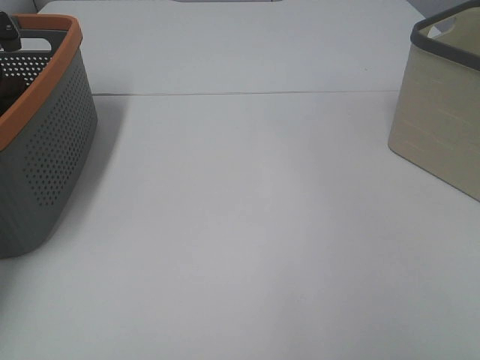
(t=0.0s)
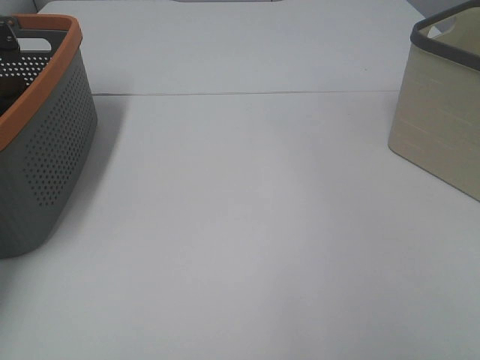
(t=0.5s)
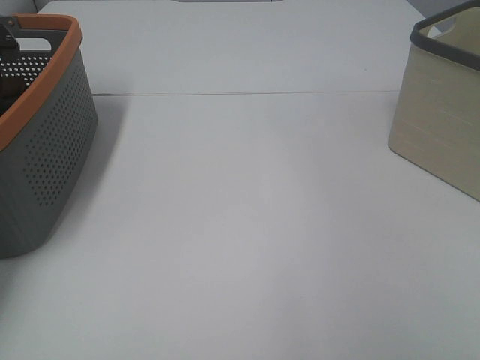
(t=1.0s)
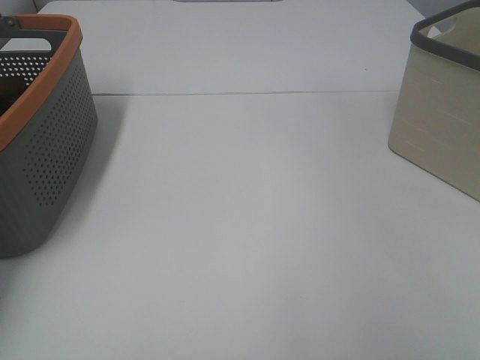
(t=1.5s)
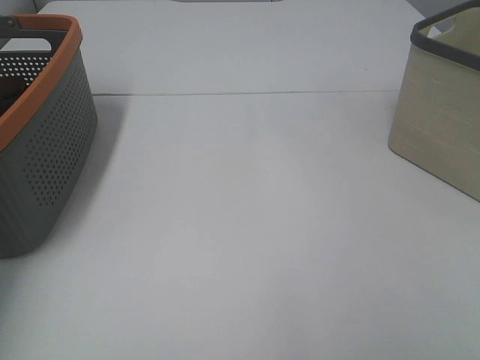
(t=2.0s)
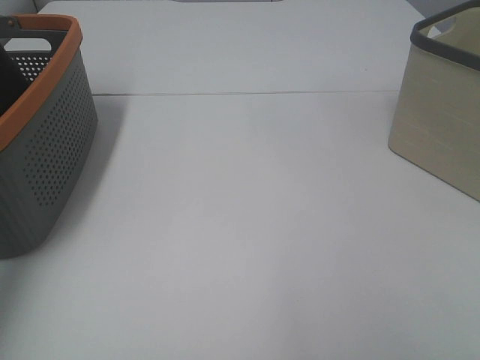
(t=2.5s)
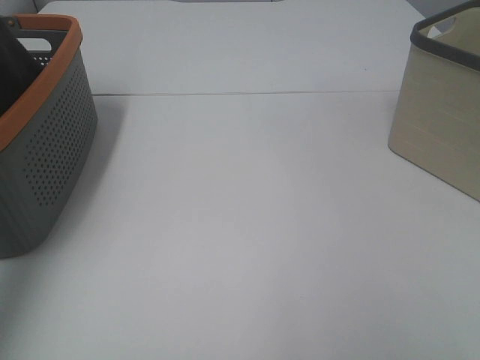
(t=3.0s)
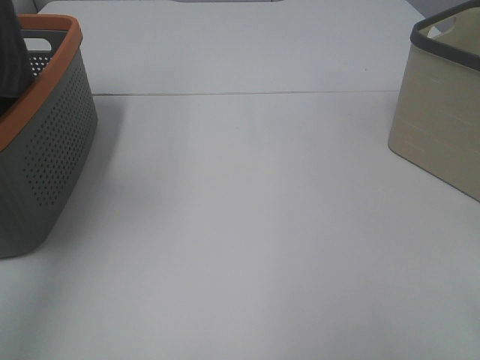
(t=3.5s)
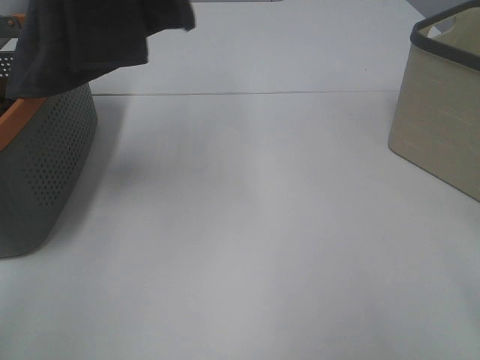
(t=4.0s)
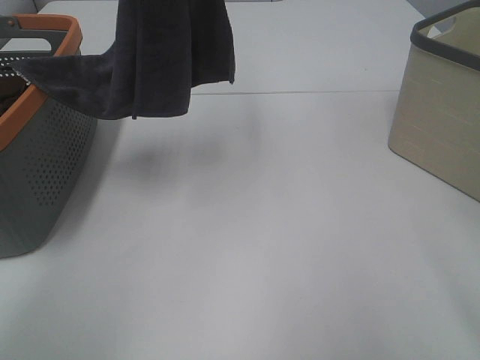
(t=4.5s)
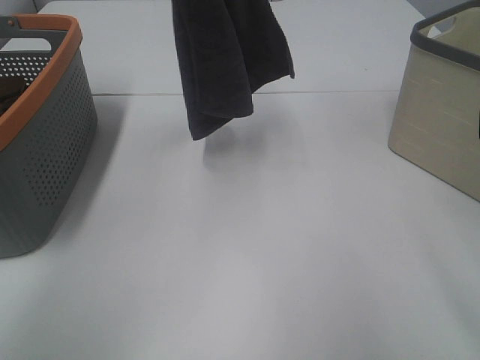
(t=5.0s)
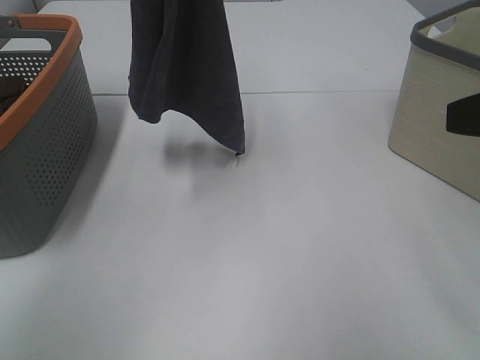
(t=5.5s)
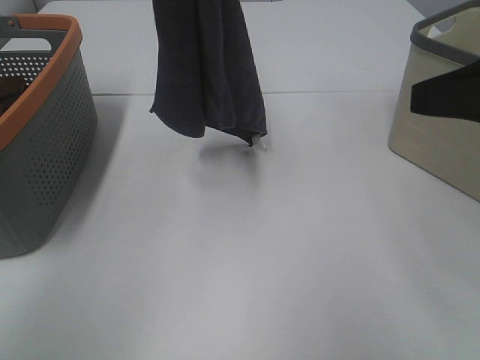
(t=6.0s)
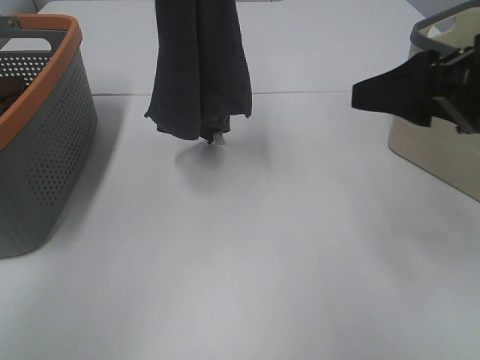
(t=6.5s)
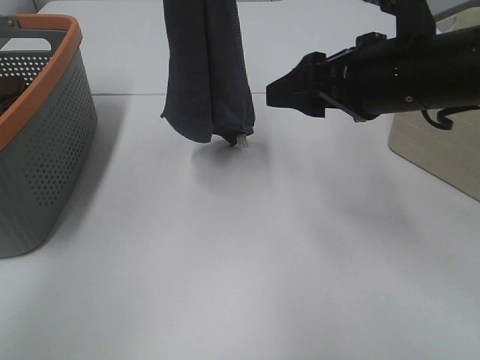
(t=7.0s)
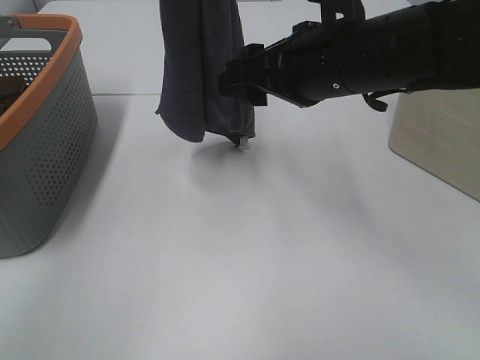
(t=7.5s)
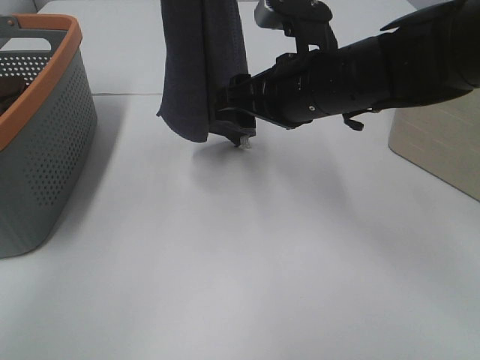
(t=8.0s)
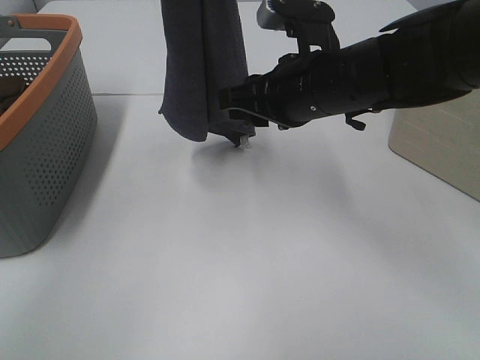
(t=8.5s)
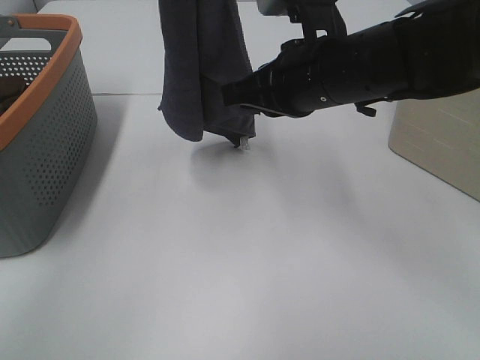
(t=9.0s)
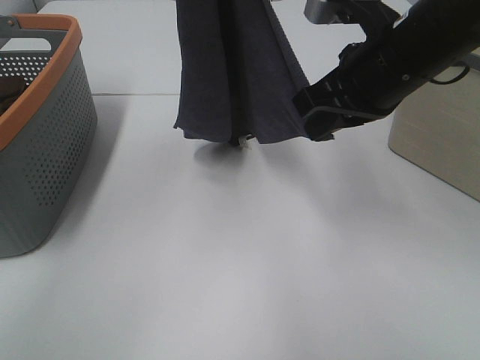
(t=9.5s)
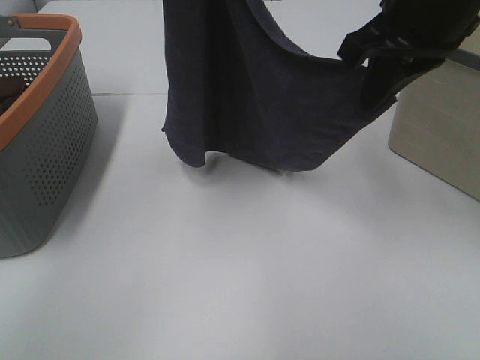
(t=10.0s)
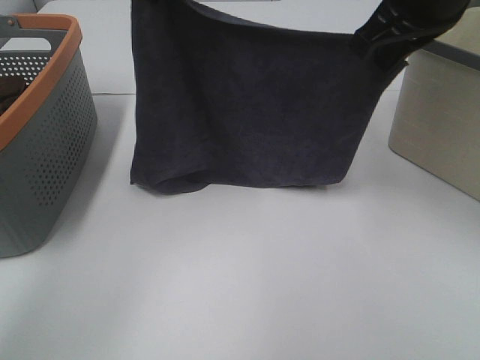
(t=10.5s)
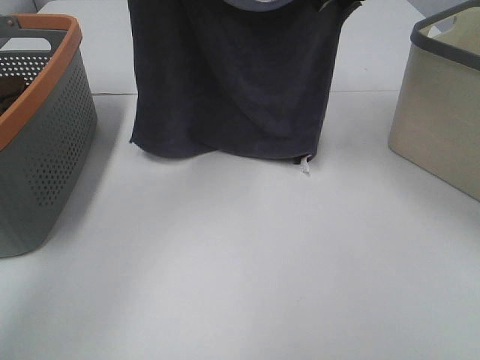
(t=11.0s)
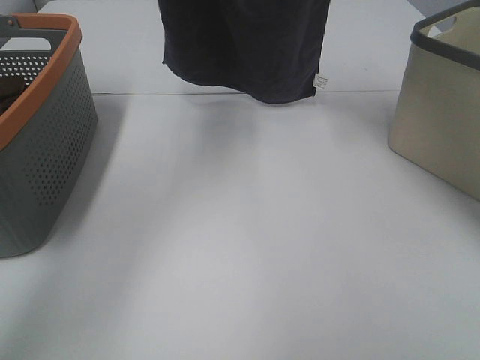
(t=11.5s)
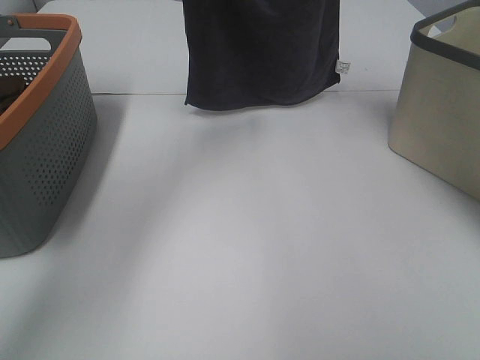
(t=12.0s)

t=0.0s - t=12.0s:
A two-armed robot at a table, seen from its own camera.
Task of the whole recording: Remove the towel and place it.
Step, t=4.0s - t=8.0s: Right hand: grab a corner of the grey towel and straighten it.
Step, t=8.5s - t=11.0s: Right hand: spread the grey towel flat on the table.
t=2.0s - t=4.0s: The left gripper heads upward, to the right and backward, covering about 30 cm, while the right gripper travels forward by about 10 cm.
t=4.0s - t=6.0s: The right gripper moves forward, approximately 10 cm; the left gripper shifts roughly 15 cm downward, to the right and forward.
t=6.0s - t=8.0s: The right gripper is displaced to the left, forward and downward by roughly 25 cm.
t=8.0s - t=10.0s: The left gripper shifts by about 5 cm. Meanwhile the right gripper goes some 15 cm upward and to the right, and closes.
t=10.0s - t=12.0s: The left gripper shifts roughly 15 cm forward and downward; the right gripper shifts about 20 cm forward.

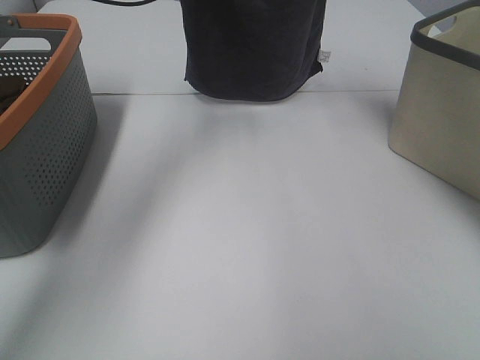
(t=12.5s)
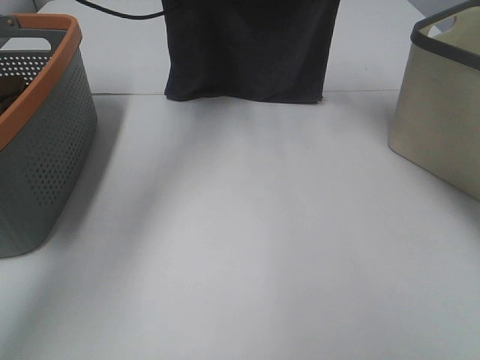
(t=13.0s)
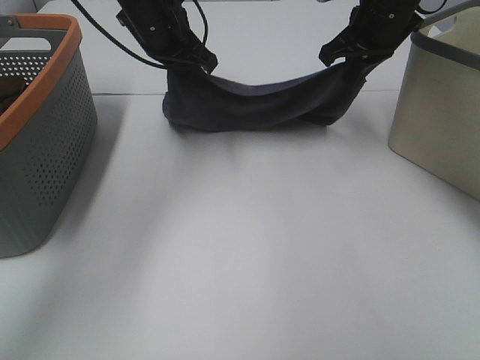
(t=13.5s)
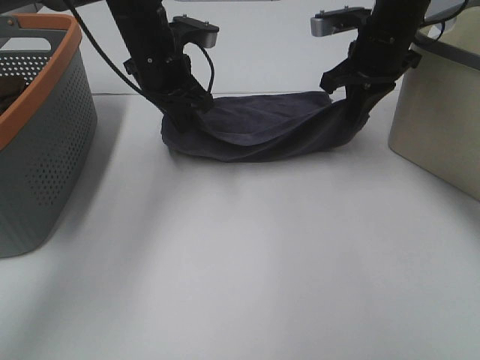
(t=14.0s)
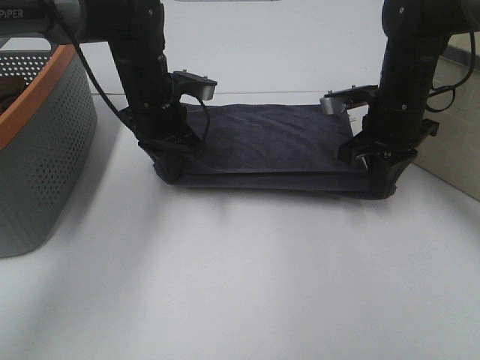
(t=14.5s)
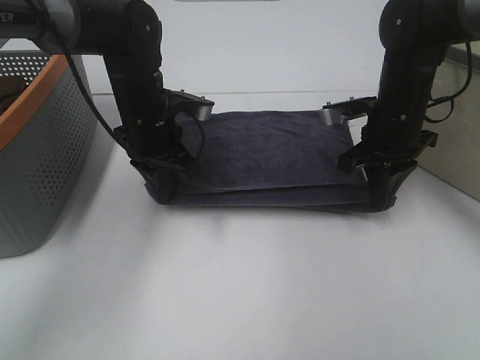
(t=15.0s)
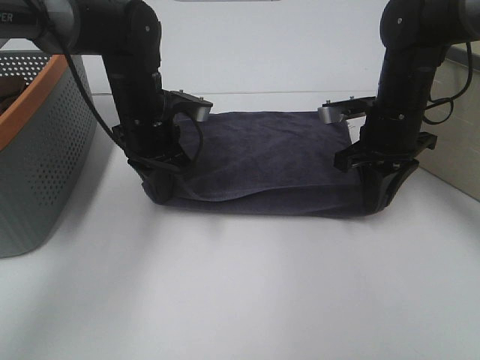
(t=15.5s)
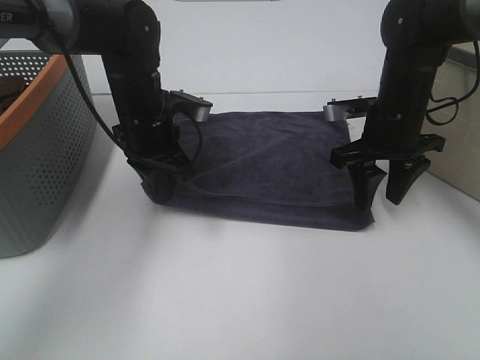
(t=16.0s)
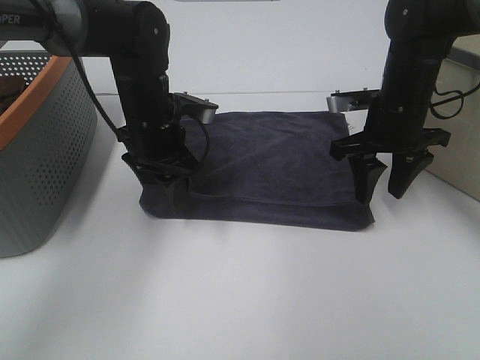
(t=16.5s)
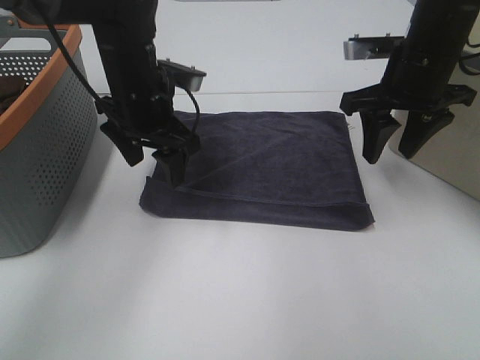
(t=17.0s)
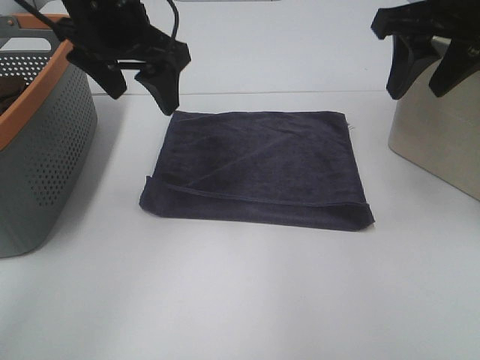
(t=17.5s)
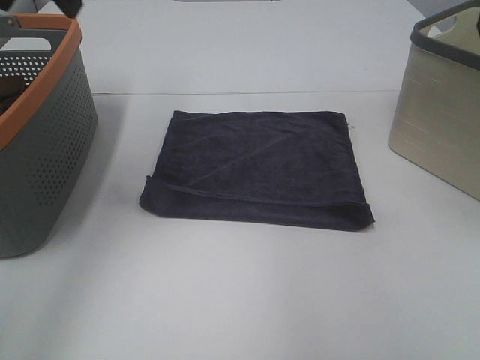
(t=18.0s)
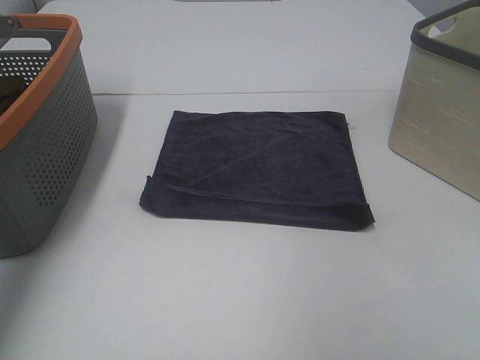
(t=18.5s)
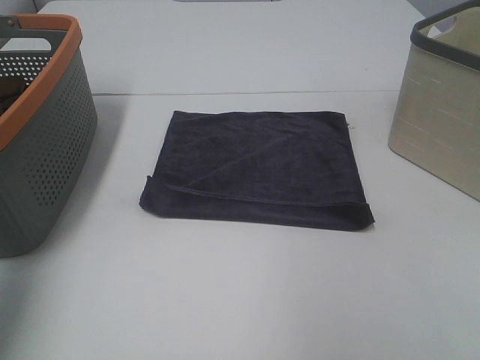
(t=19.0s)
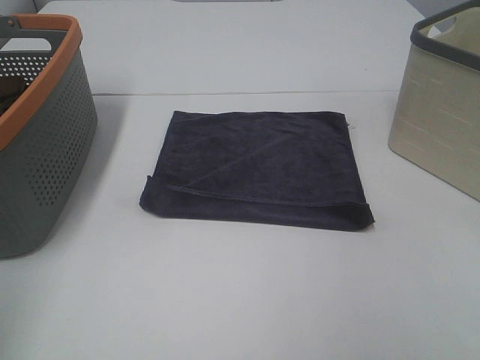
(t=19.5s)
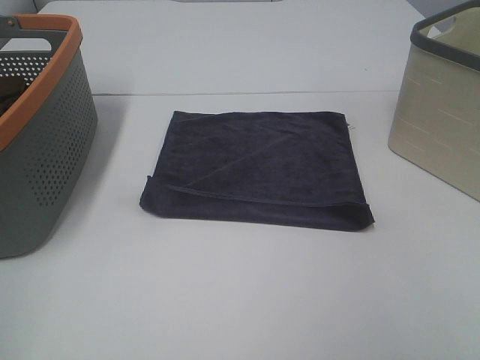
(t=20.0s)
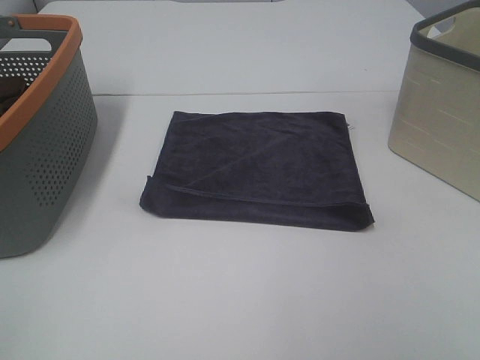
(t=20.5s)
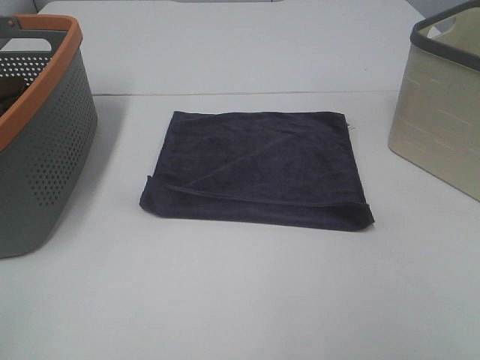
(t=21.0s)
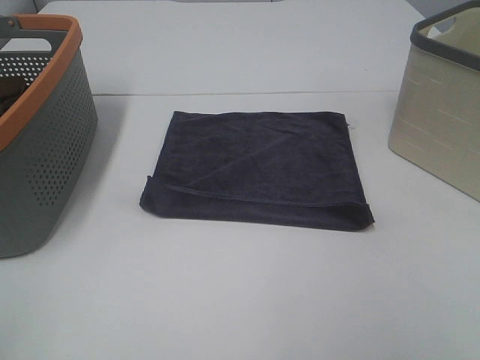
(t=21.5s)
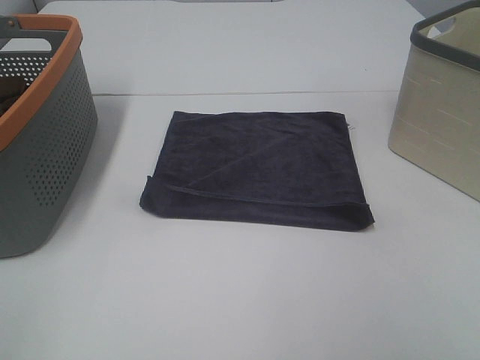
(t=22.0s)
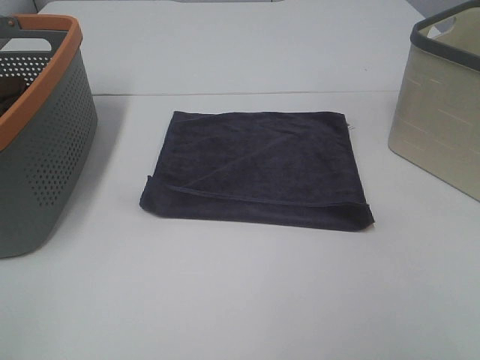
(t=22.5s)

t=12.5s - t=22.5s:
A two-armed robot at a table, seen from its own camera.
Task of the whole recording: Remove the towel and place it.
t=12.5s - t=14.5s: Both grippers move downward and backward, about 20 cm.
t=14.5s - t=16.5s: The left gripper opens. Meanwhile the right gripper opens its fingers.
t=16.5s - t=18.5s: The left gripper moves to the left, upward and backward, approximately 35 cm. The right gripper travels upward, to the right and backward by roughly 30 cm.
t=18.5s - t=20.5s: The left gripper travels backward by some 30 cm.

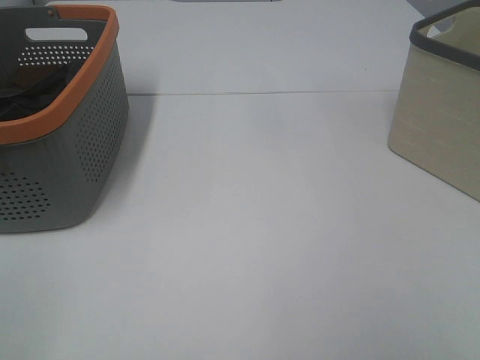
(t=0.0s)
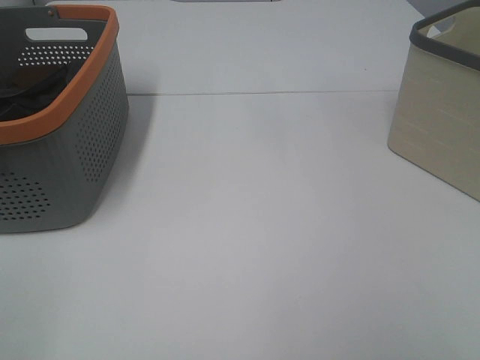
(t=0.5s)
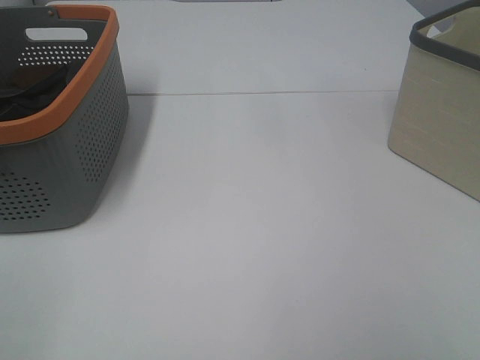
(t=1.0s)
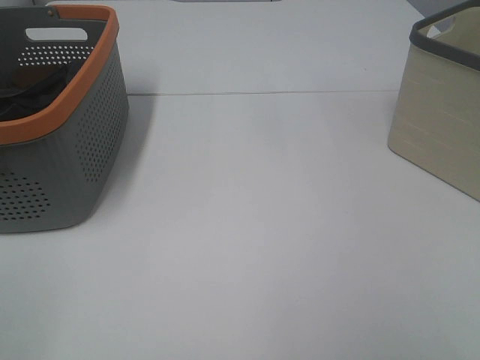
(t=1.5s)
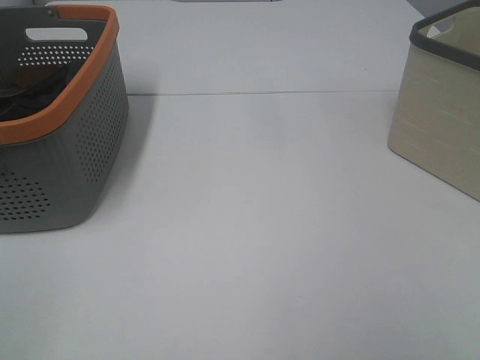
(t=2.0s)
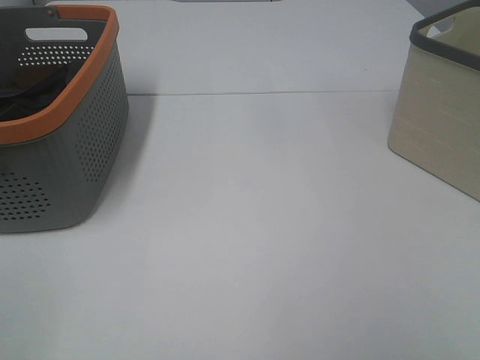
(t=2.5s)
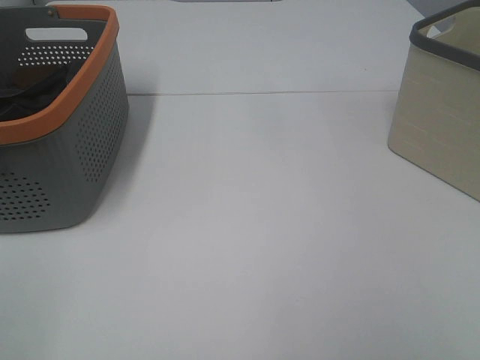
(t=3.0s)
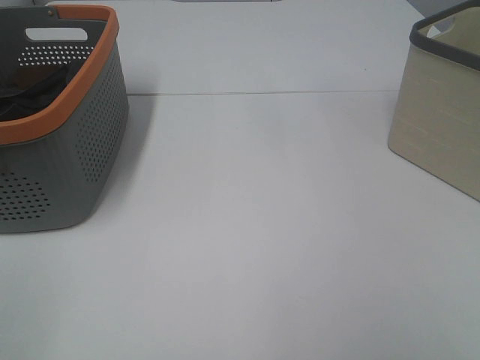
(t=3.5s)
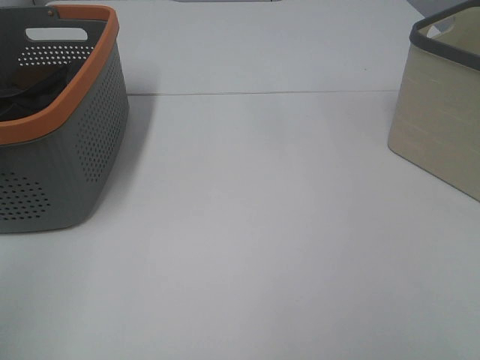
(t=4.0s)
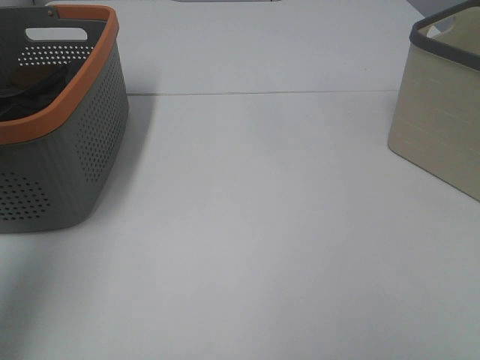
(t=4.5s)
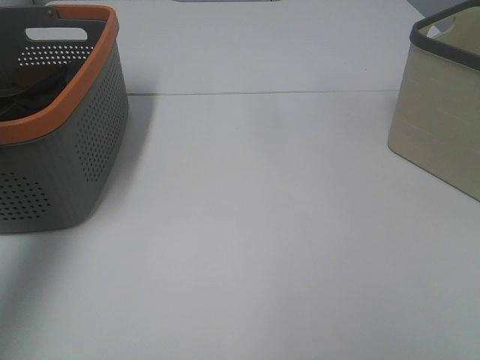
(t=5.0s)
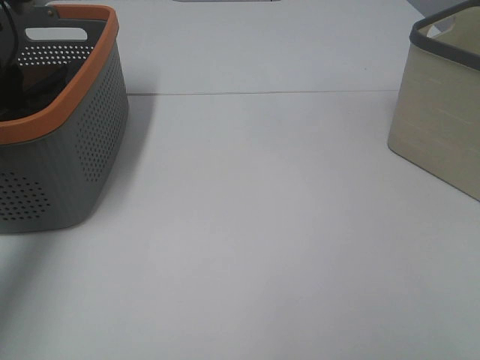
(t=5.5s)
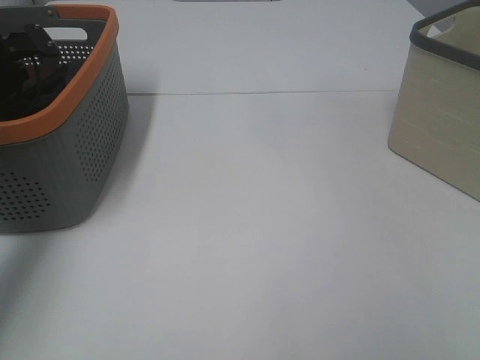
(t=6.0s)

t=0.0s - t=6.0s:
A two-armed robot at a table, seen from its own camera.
Task of the whole recording: Remove the towel and place it.
t=0.0s - t=2.0s: The two grippers keep their place.
t=4.0s - t=6.0s: The left gripper heads forward and downward, covering about 40 cm.
